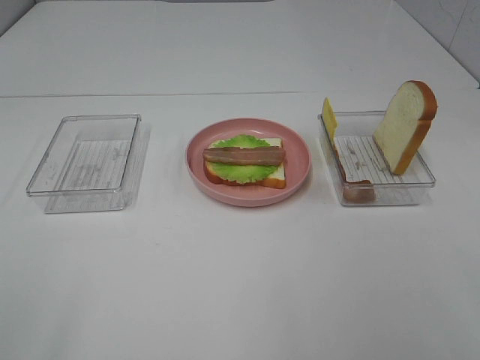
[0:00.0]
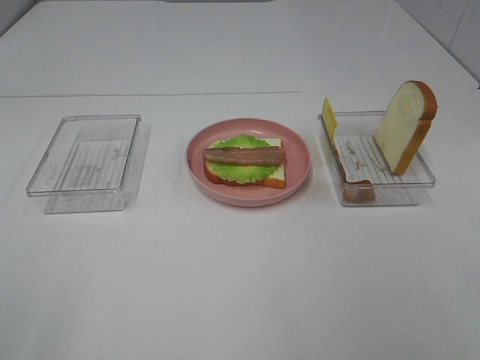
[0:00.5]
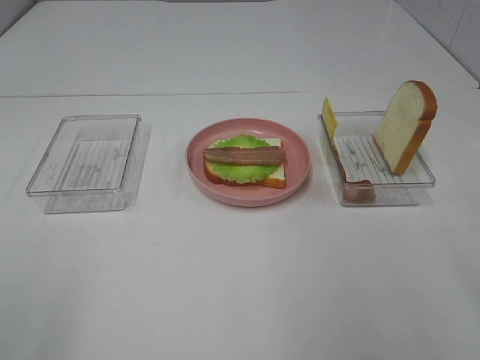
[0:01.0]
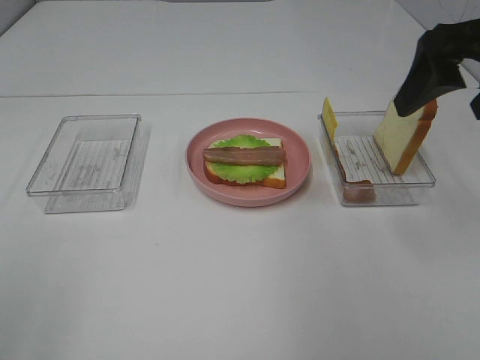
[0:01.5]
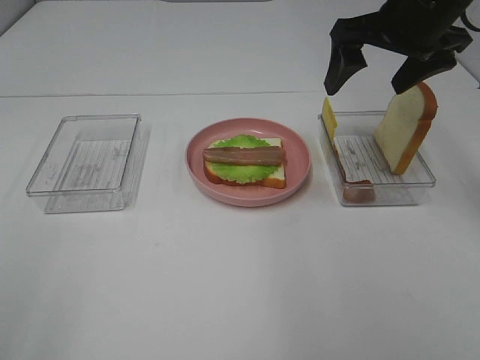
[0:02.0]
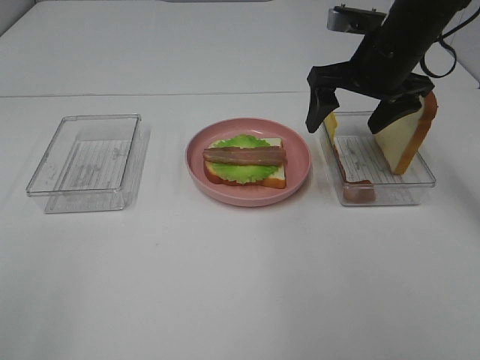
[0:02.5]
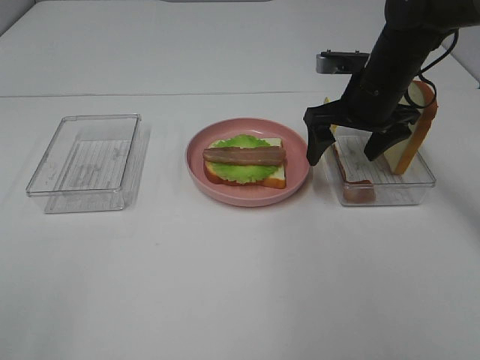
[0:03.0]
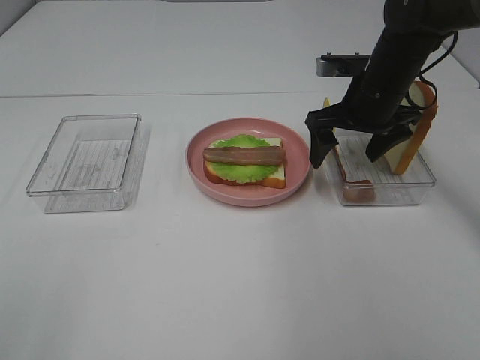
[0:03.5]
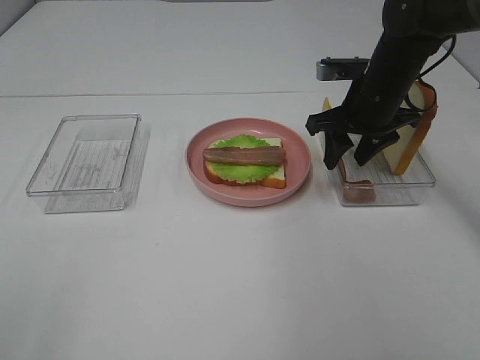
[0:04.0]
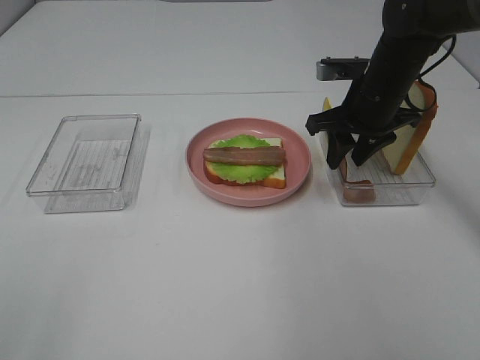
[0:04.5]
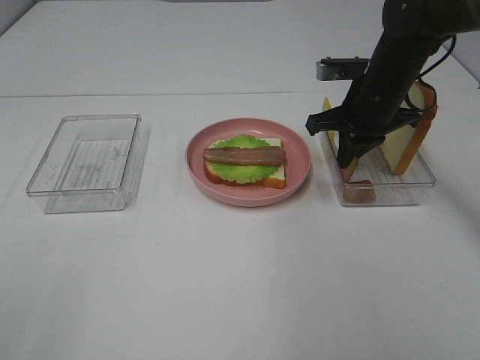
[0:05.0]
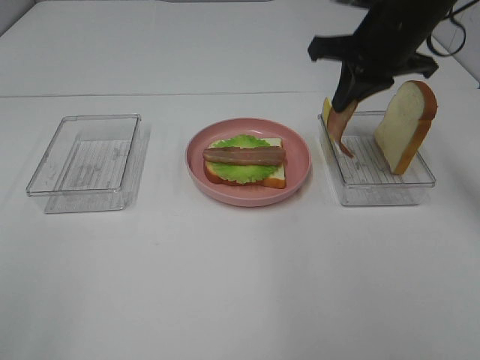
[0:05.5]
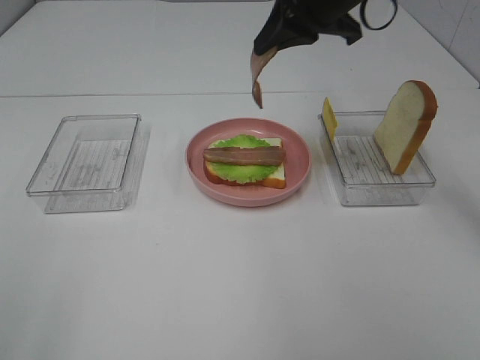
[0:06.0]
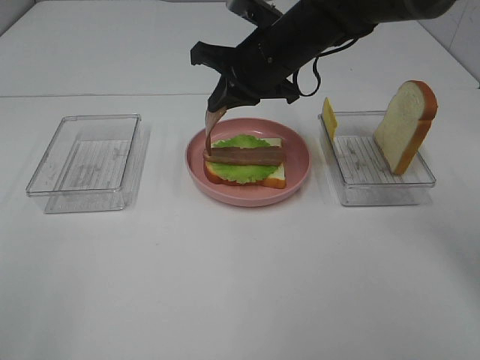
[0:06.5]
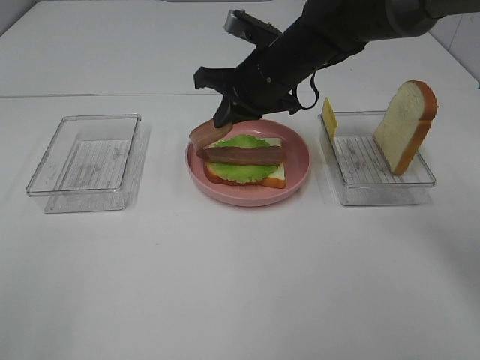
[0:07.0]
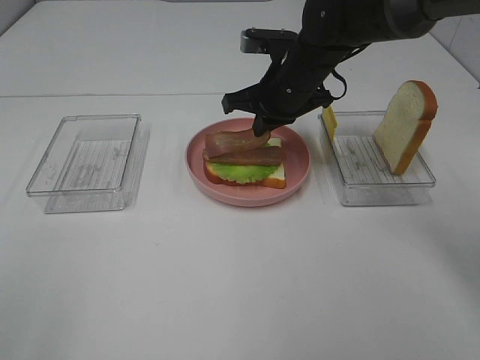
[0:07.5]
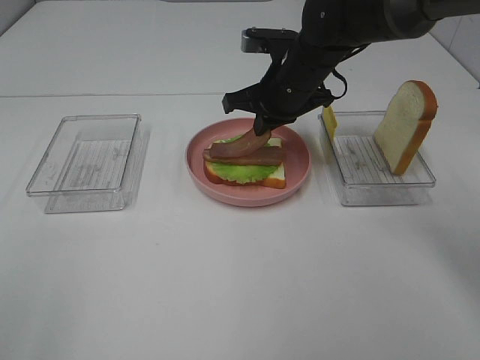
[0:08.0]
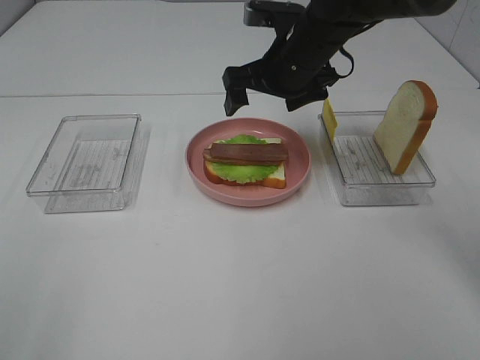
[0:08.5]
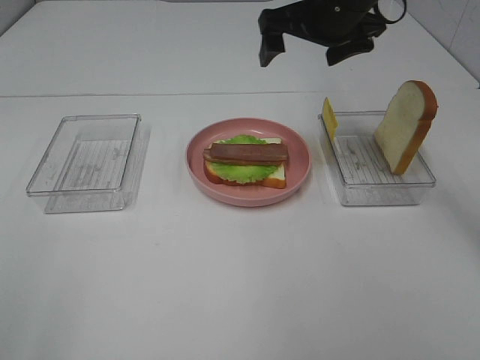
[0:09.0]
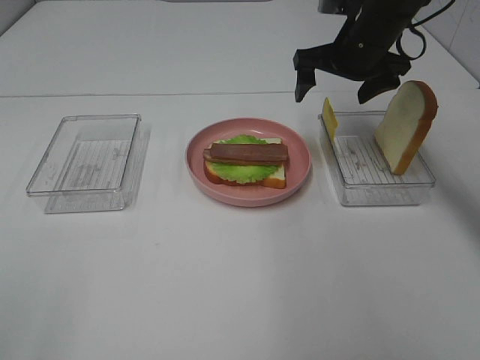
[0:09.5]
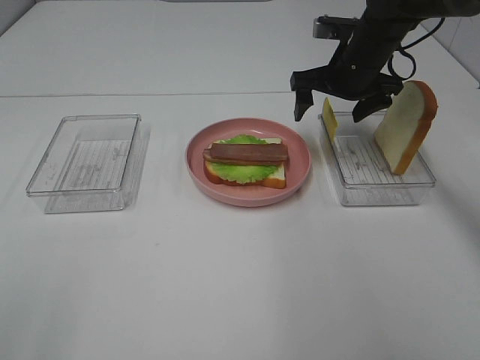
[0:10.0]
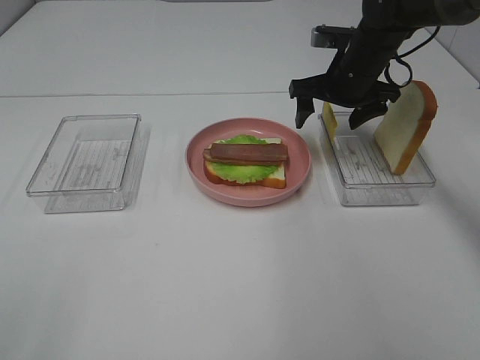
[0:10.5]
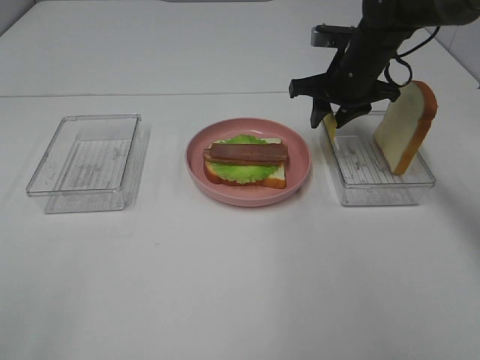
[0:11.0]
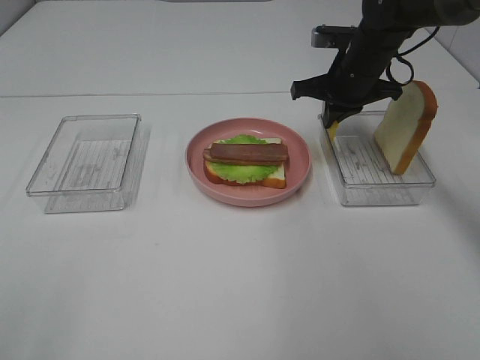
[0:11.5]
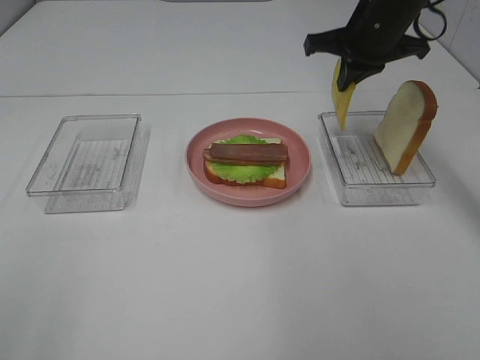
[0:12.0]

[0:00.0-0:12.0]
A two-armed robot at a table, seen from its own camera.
Task of the whole recording: Make sandwiches.
Step, 0:00.0 to 0:05.0: Right hand:grab the bacon.
Step, 0:05.5 to 0:08.5: Right hand:place bacon on bacon.
Step, 0:09.0 to 0:11.5: Right hand:grab the cheese slice.
0:00.0 to 0:02.0: The right gripper shifts some 35 cm forward.
0:02.0 to 0:04.0: The right gripper goes about 10 cm downward, and closes.
0:04.0 to 0:06.0: The right gripper goes about 15 cm upward and to the left, and closes up.
0:06.0 to 0:08.0: The right gripper travels downward by about 10 cm.
0:08.0 to 0:10.0: The right gripper shifts roughly 10 cm to the right, moves roughly 10 cm upward and comes back, and opens up.
0:10.0 to 0:12.0: The right gripper heads upward, covering about 5 cm, and closes up.

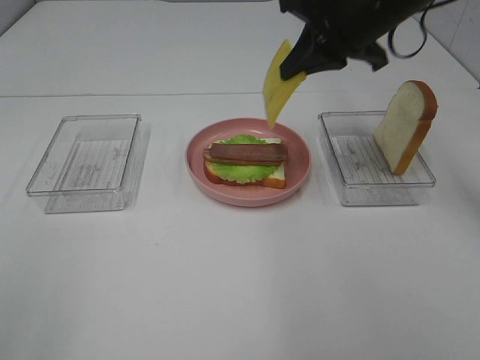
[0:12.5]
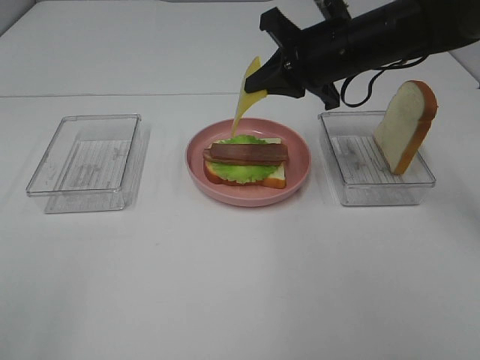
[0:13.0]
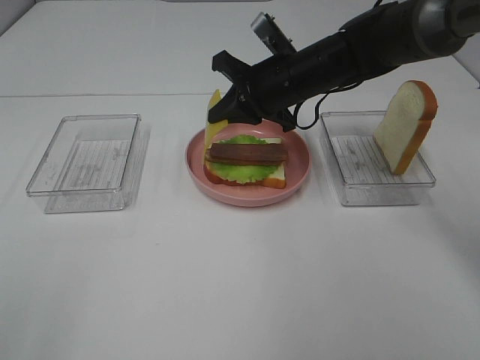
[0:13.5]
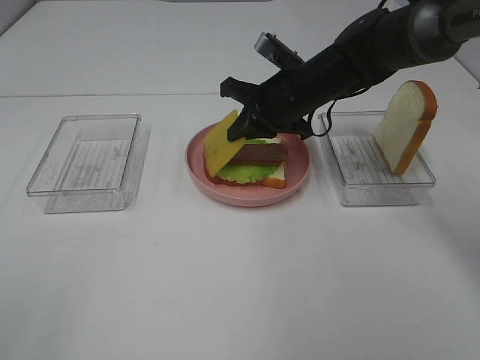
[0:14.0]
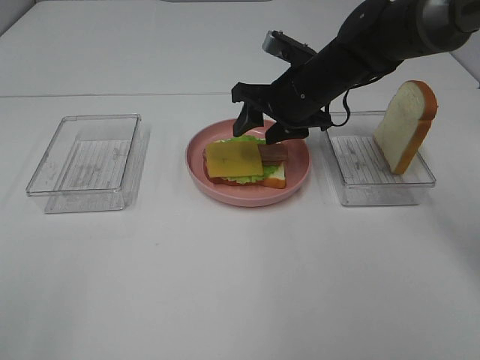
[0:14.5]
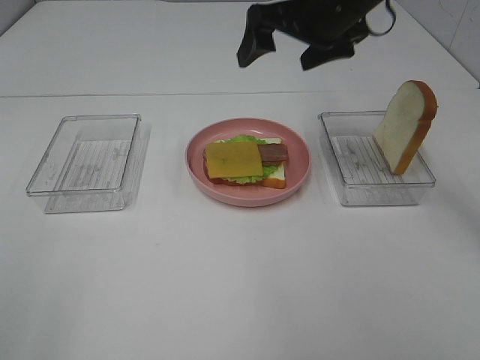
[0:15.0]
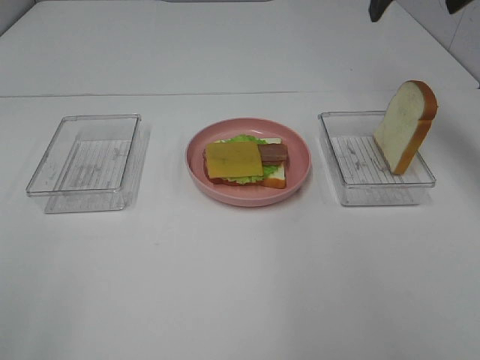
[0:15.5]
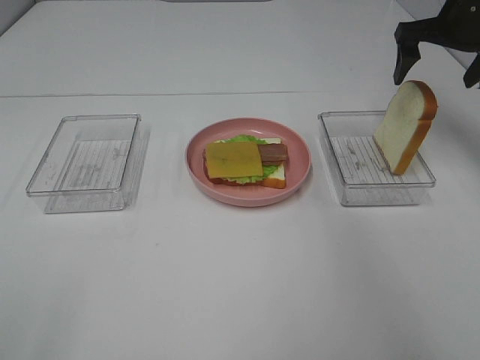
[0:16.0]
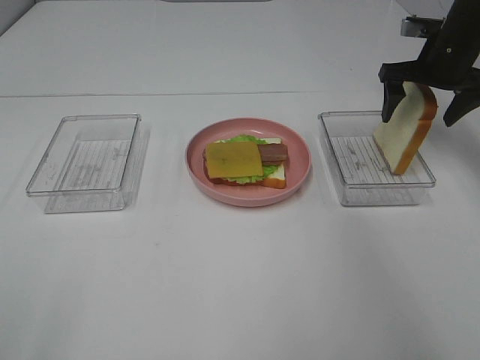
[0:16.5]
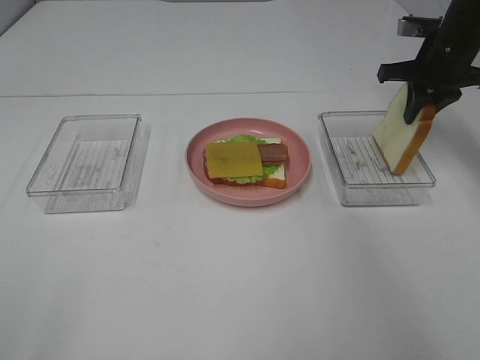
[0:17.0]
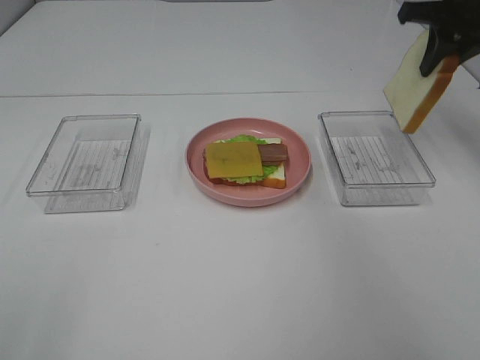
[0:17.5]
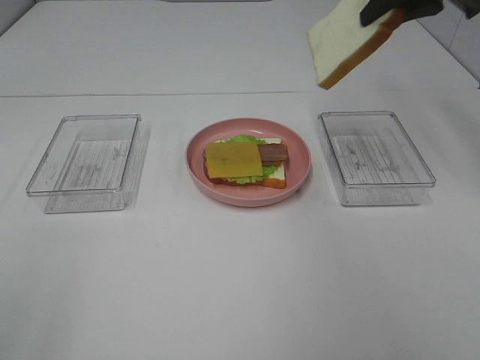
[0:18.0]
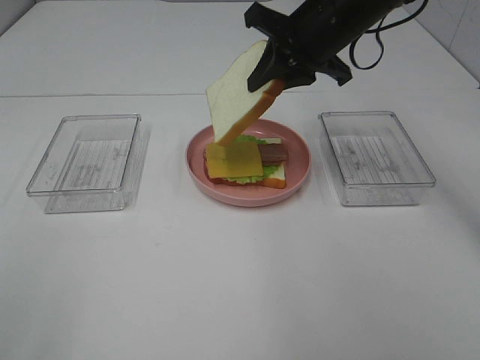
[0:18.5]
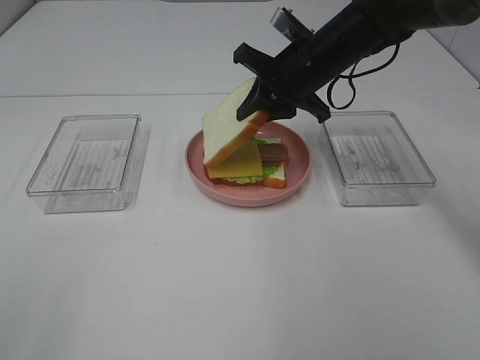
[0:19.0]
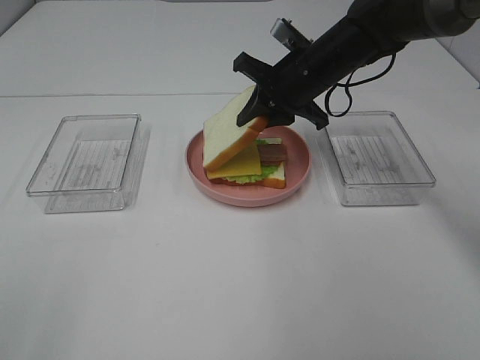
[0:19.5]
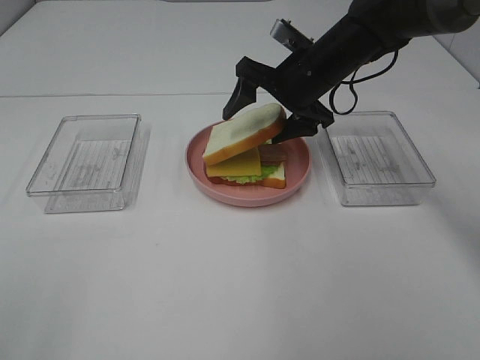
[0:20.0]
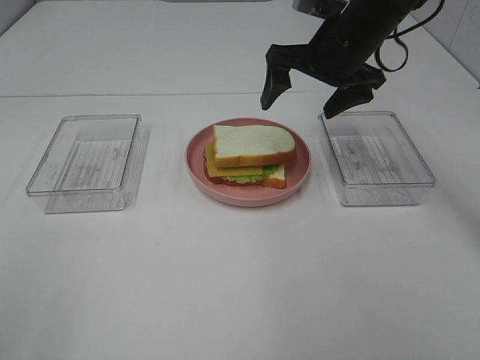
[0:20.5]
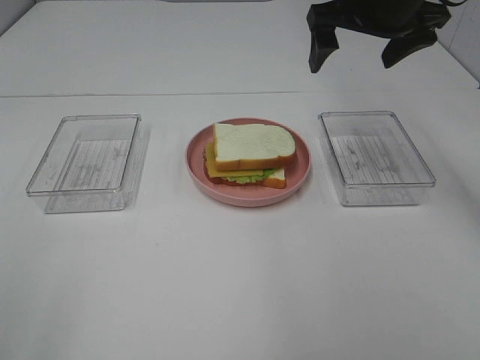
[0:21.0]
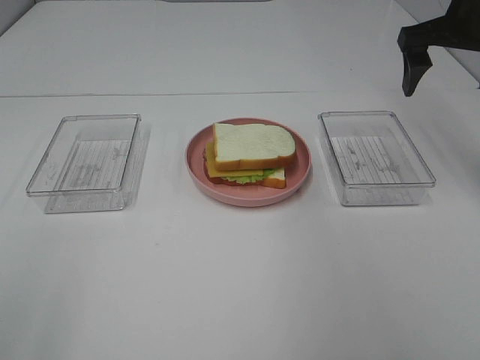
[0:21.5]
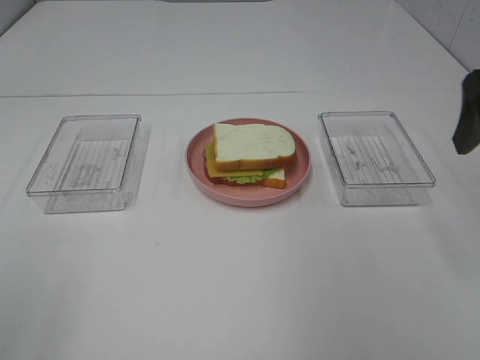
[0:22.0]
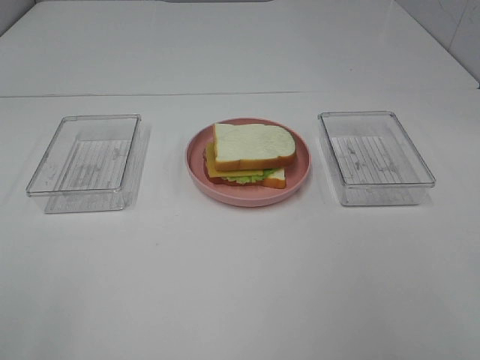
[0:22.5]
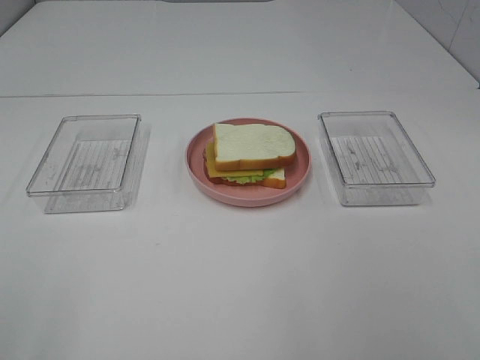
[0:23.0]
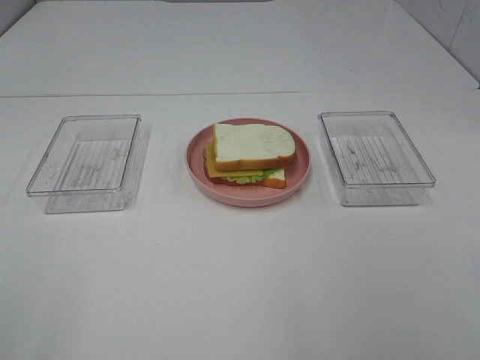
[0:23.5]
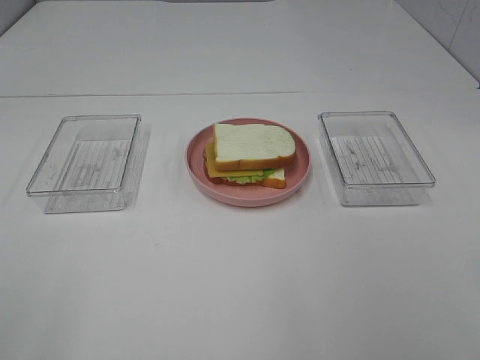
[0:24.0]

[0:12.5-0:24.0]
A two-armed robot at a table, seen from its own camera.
Task of the whole recording: Make sandwiches.
Step, 0:12.5 to 0:14.5: Right hand:place the cheese slice on top of the bacon.
Step, 0:15.0 to 0:17.0: Right hand:grab the bread slice.
Step, 0:17.5 to 0:20.0: Right hand:place the bread slice on the cheese slice.
0:12.5 to 0:14.5: The right gripper travels downward by roughly 10 cm, and opens its fingers.
0:14.5 to 0:16.5: The right gripper goes roughly 20 cm to the right.
0:16.5 to 0:18.5: The right gripper heads to the left, covering about 20 cm, and closes up.
0:18.5 to 0:20.0: The right gripper shifts approximately 5 cm downward, and opens its fingers.
0:20.0 to 0:22.0: The right gripper is displaced backward, to the right and upward by some 25 cm.
0:22.0 to 0:24.0: The right gripper travels backward by approximately 25 cm.

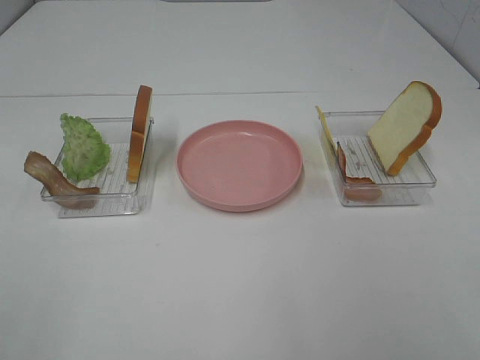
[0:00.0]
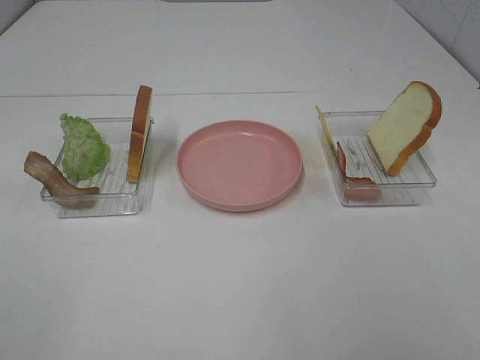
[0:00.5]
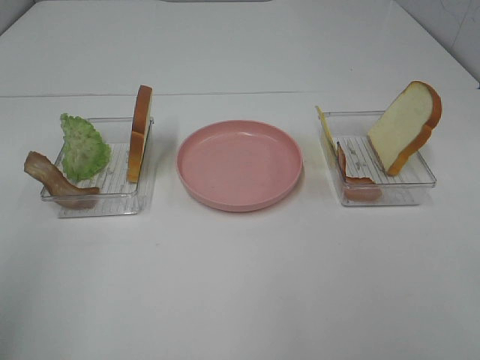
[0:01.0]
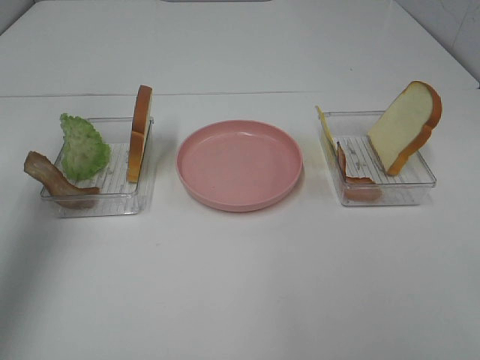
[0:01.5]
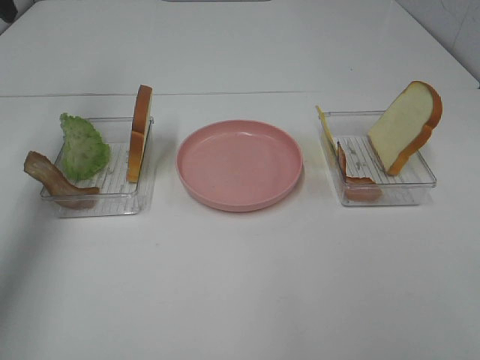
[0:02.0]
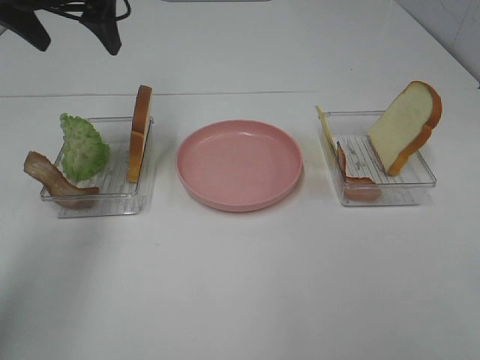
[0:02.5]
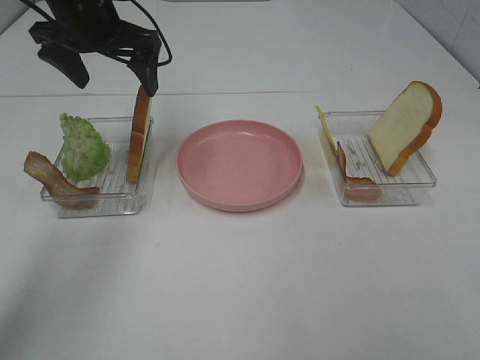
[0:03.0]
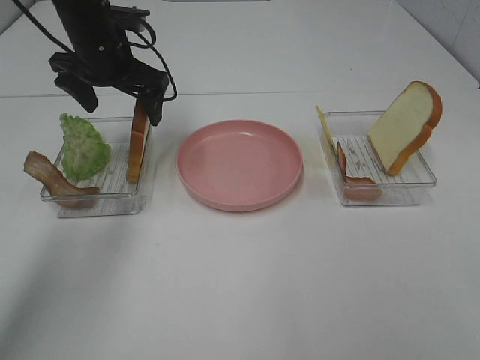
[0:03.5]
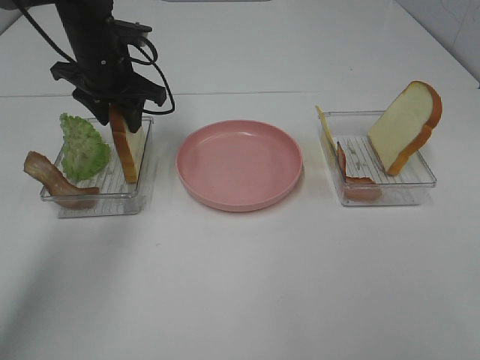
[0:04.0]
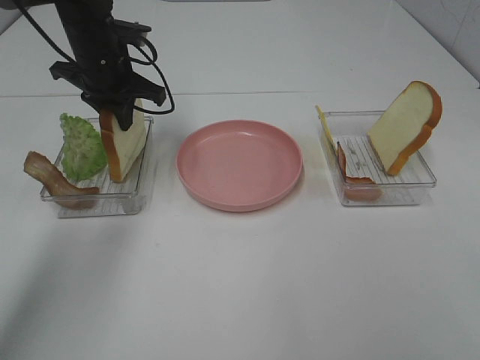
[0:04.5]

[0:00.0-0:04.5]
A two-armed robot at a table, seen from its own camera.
Task of the whole recording: Make sandwiches.
0:00.0 to 0:02.0: The left gripper goes some 40 cm forward.
0:02.0 to 0:04.5: The left gripper travels downward and to the right by some 20 cm, and closes up.
